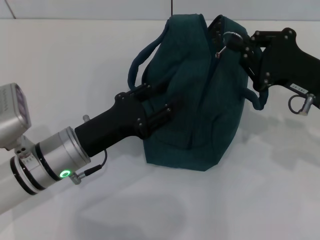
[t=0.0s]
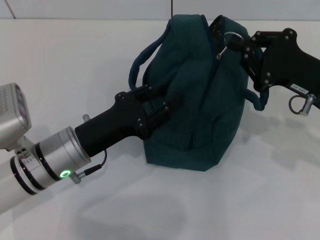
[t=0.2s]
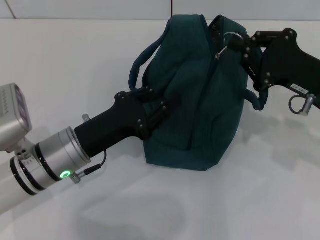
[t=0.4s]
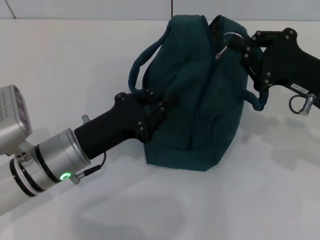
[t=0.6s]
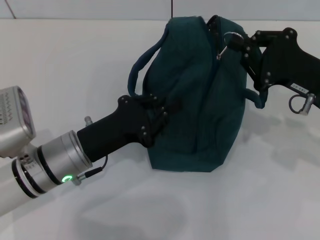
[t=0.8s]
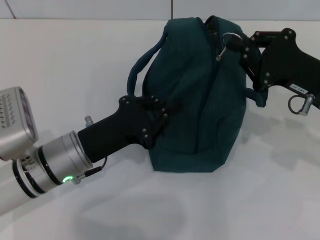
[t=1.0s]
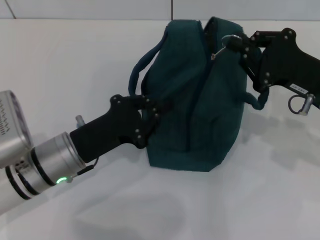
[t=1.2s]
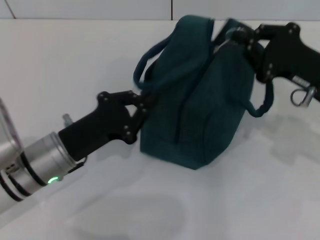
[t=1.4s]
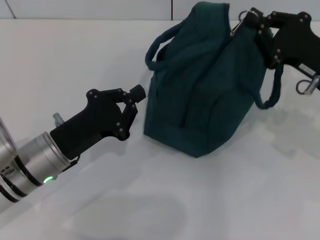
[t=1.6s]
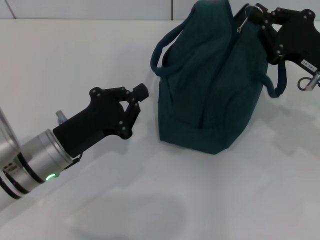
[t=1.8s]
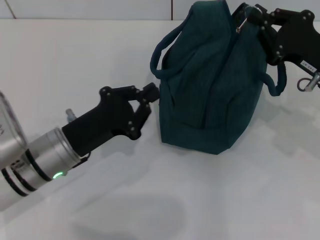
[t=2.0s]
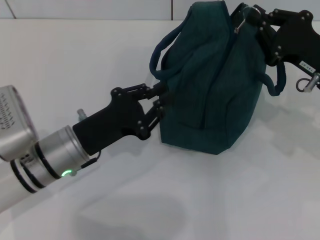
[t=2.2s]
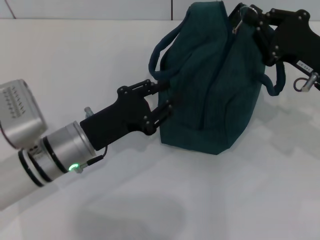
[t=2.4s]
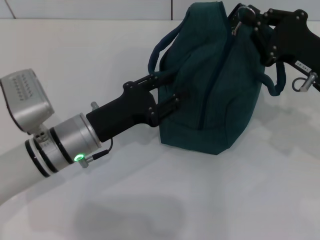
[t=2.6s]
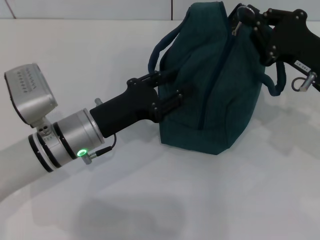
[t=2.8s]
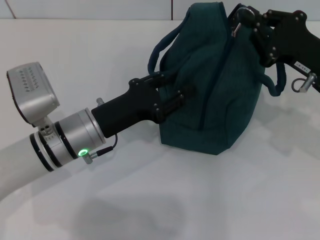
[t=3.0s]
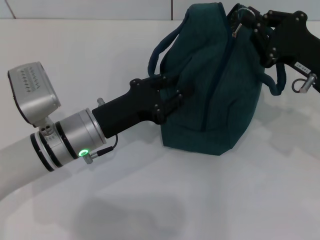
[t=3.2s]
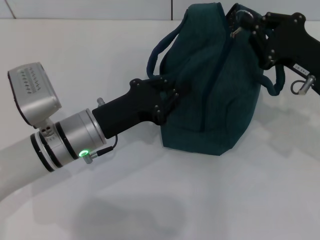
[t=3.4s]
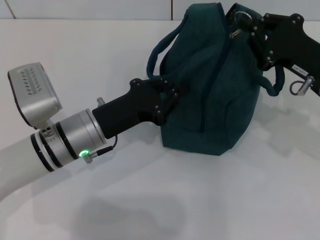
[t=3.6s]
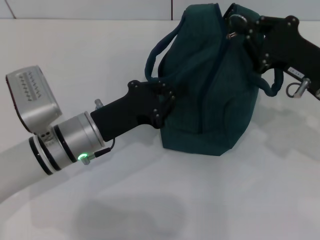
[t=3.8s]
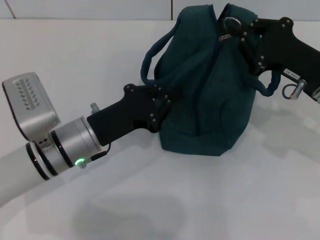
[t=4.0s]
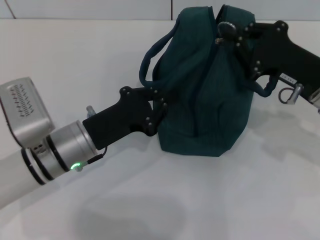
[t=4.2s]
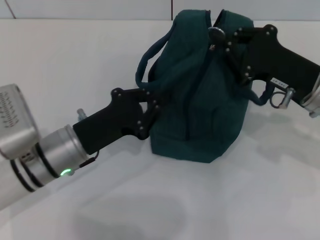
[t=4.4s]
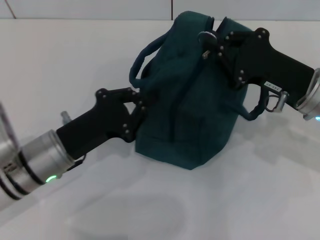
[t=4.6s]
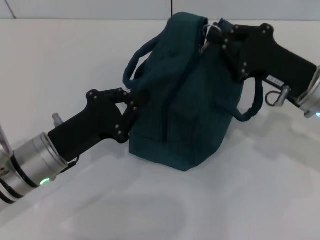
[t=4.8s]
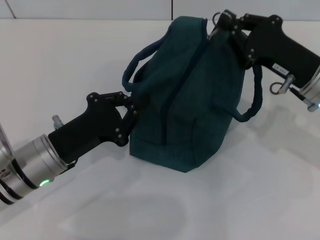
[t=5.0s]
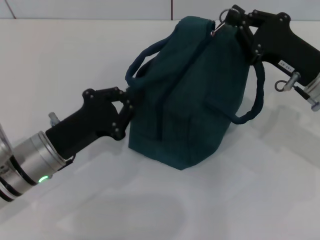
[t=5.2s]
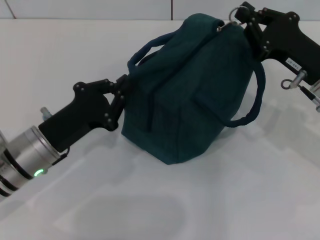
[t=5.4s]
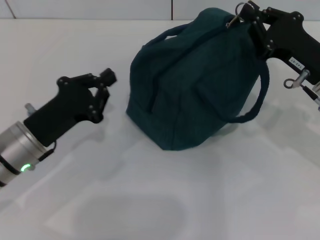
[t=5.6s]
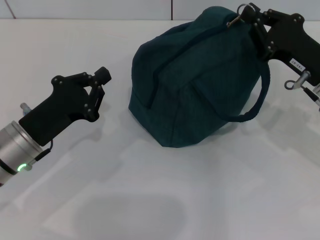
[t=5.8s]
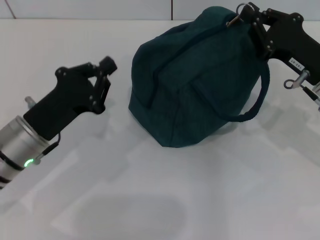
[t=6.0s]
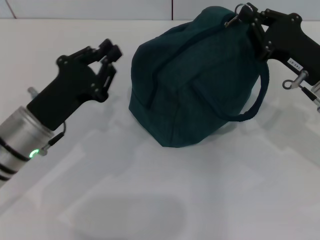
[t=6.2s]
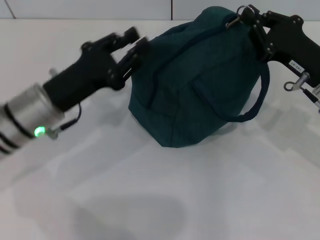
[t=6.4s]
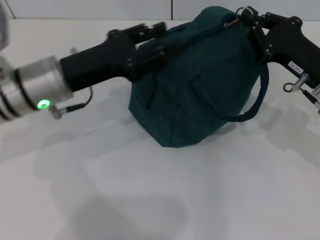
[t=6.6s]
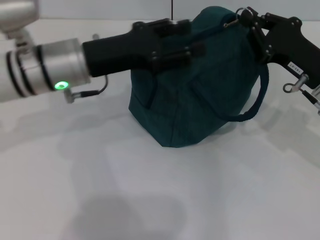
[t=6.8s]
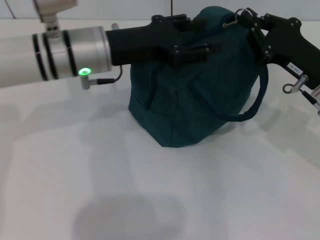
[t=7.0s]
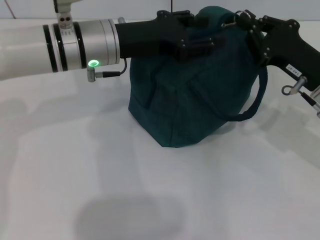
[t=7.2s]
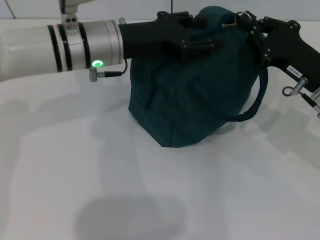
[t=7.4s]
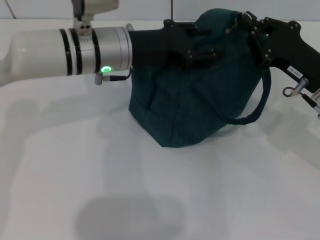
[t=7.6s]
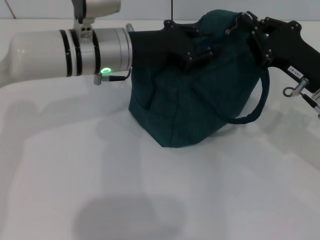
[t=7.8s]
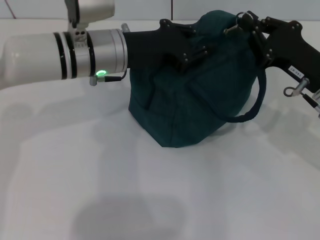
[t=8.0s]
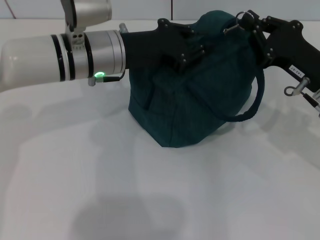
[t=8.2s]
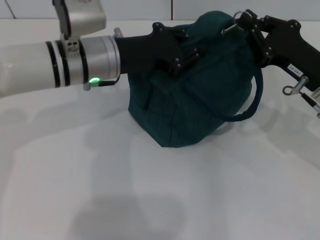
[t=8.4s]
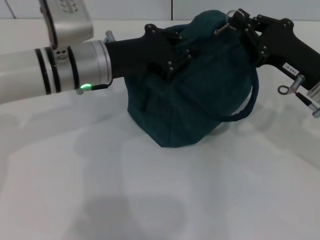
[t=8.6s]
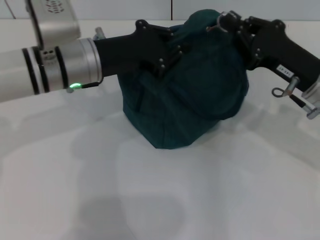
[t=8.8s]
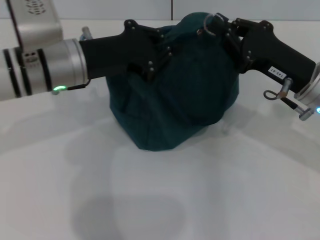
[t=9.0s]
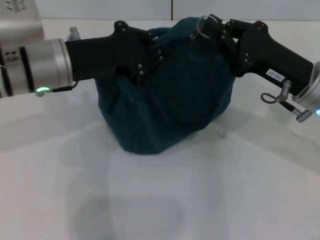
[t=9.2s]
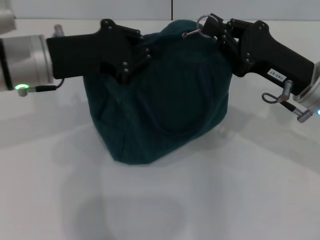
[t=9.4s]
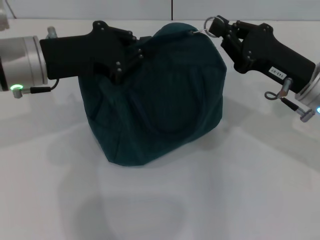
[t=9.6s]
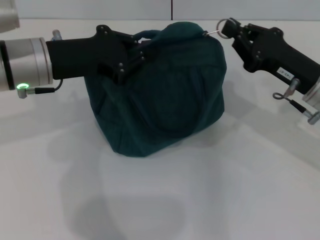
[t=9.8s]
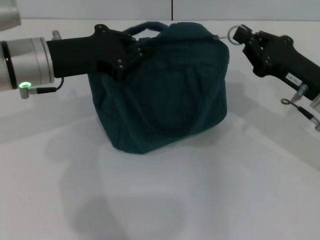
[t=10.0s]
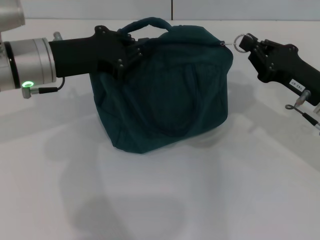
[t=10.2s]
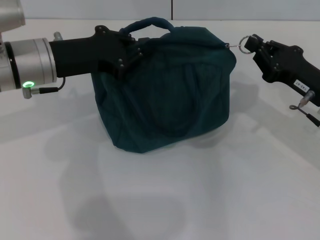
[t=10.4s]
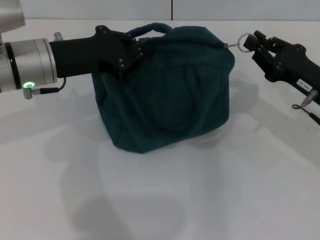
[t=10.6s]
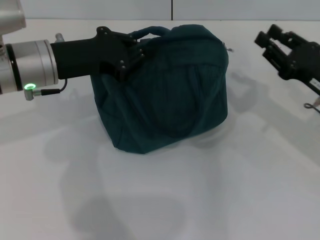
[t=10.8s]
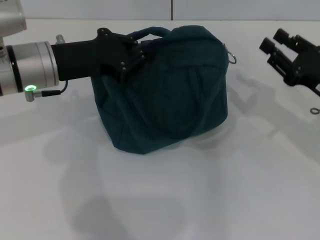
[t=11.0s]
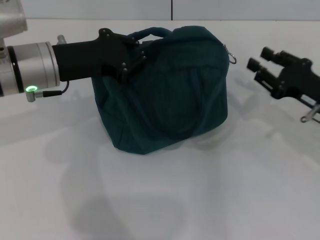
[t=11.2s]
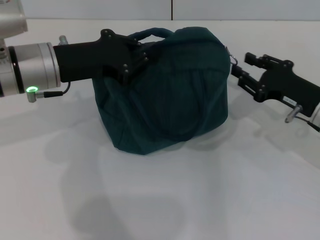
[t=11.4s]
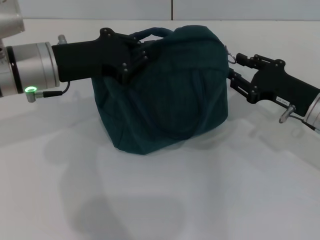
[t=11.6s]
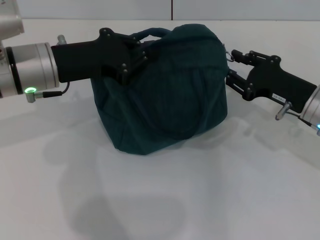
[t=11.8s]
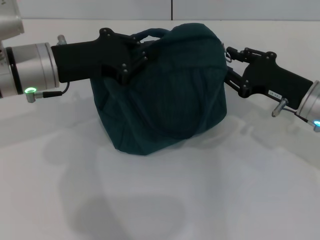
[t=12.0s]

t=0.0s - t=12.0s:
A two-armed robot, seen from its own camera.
t=0.0s - t=1.6s: The left gripper closes up.
t=1.6s - t=3.0s: The left gripper changes place by roughly 5 cm, and opens up.
t=3.0s - t=4.4s: The left gripper closes up.
t=6.0s - t=7.6s: The left gripper heads forward, to the right and upward, covering roughly 20 cm, and opens.
t=7.6s - t=9.0s: The left gripper moves to the left, approximately 5 cm, and closes up.
t=9.0s - t=10.4s: The right gripper ends up roughly 5 cm from where it was.
t=10.4s - t=12.0s: The right gripper opens.

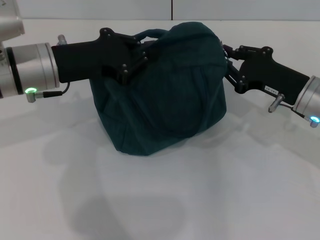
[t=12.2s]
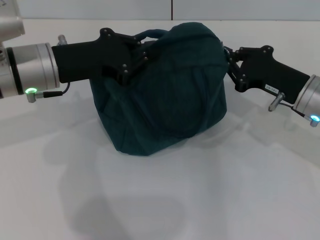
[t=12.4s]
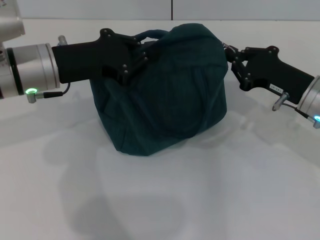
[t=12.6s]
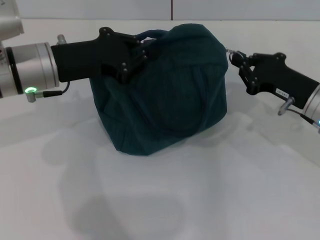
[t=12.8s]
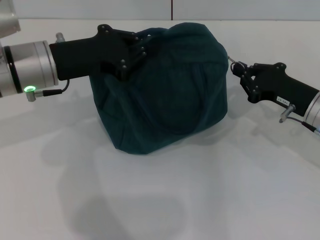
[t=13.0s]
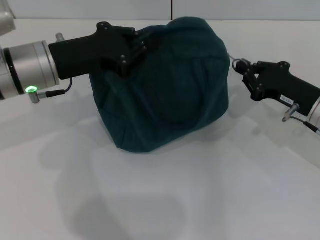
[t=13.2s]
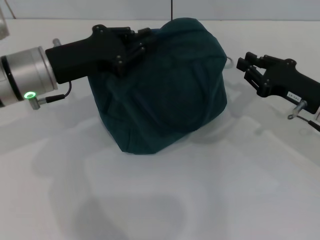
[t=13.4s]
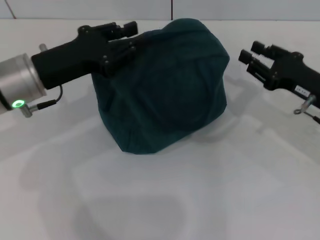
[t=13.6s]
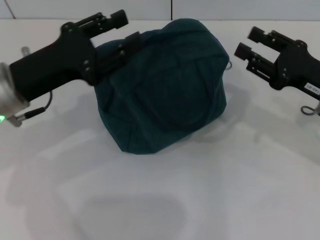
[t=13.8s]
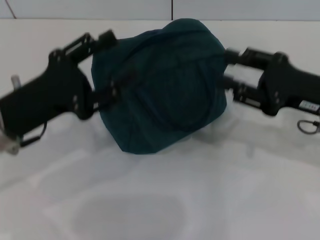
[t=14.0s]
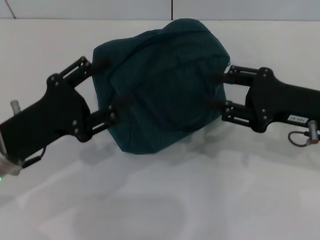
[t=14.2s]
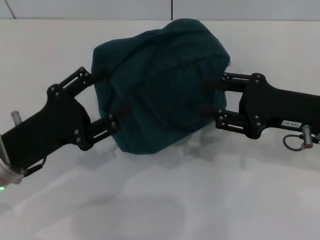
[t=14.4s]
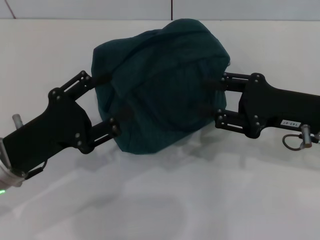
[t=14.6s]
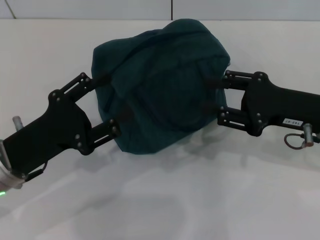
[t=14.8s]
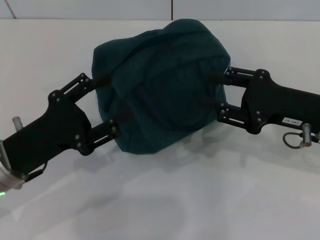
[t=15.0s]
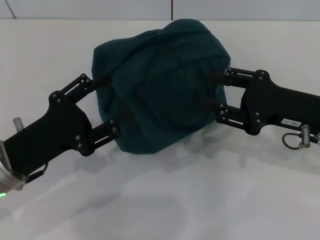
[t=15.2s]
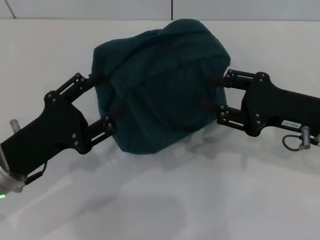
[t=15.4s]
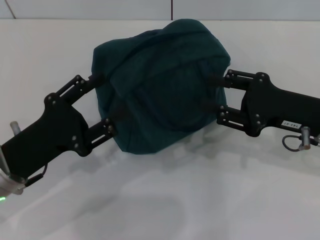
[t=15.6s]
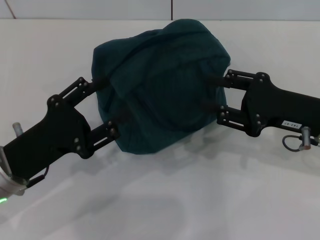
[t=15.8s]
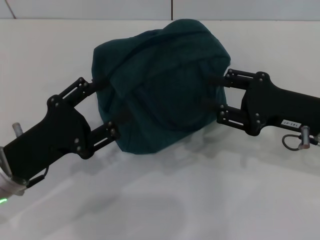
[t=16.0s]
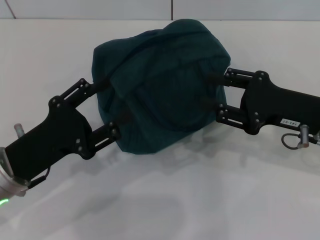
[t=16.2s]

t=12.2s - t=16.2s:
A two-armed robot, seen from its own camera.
Step, t=13.4s - t=13.6s: Hold the lunch bag with your left hand.
t=12.2s - t=13.6s: The grippers stay close to where they were, moving slightly.
t=13.6s - t=14.8s: The left gripper travels backward and downward by roughly 10 cm, and opens up. Meanwhile the right gripper shifts by roughly 5 cm, and opens its fingers.
t=14.8s - t=16.2s: Both grippers stay about where they are.
